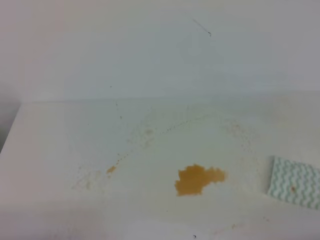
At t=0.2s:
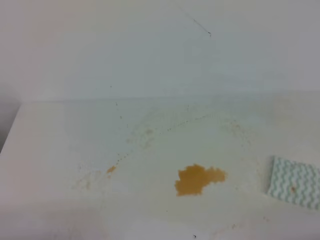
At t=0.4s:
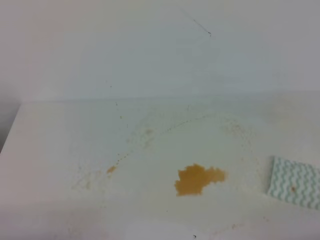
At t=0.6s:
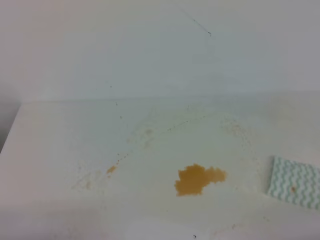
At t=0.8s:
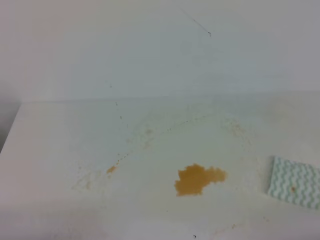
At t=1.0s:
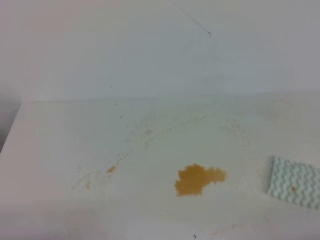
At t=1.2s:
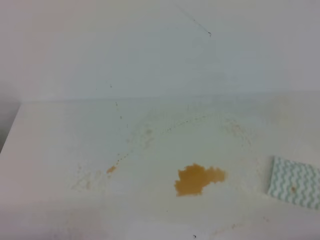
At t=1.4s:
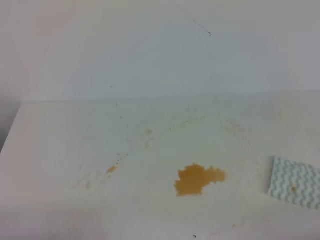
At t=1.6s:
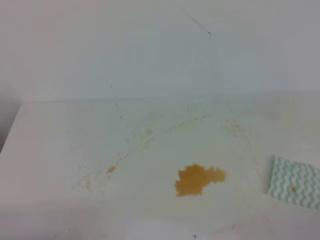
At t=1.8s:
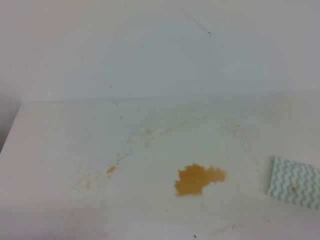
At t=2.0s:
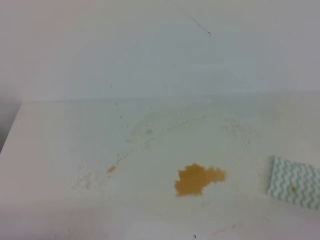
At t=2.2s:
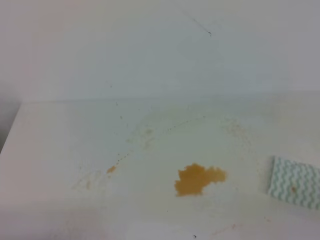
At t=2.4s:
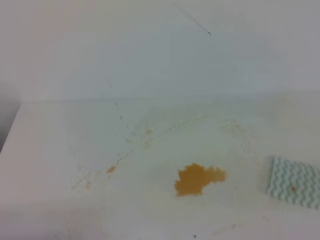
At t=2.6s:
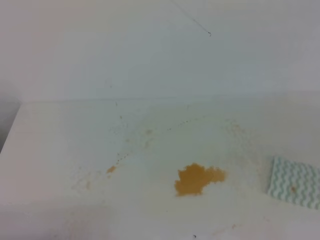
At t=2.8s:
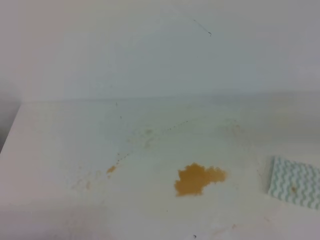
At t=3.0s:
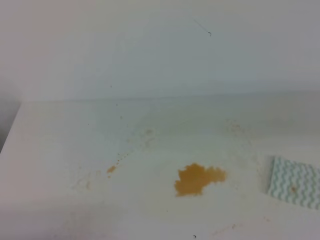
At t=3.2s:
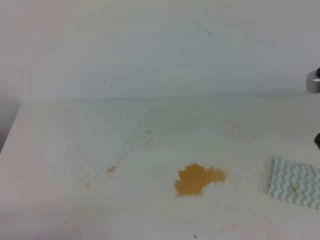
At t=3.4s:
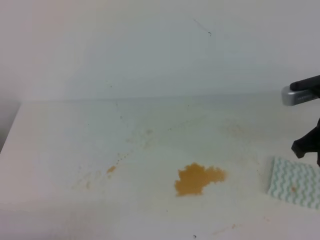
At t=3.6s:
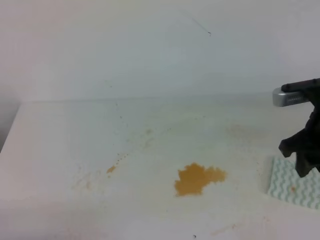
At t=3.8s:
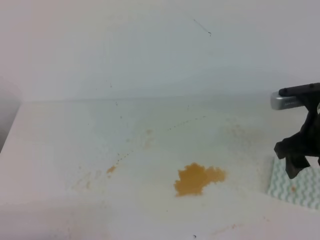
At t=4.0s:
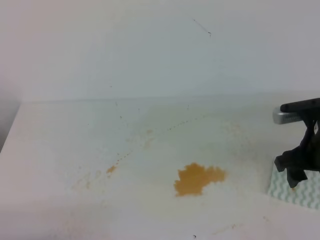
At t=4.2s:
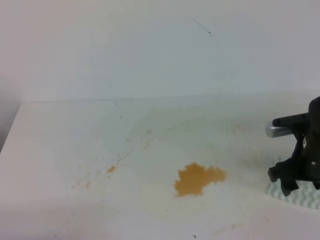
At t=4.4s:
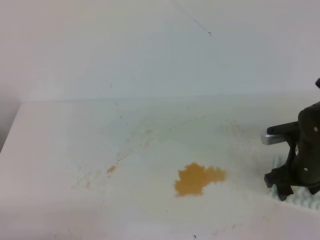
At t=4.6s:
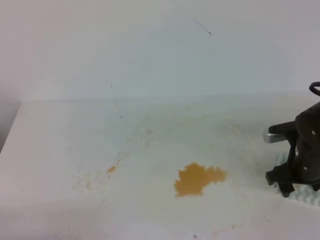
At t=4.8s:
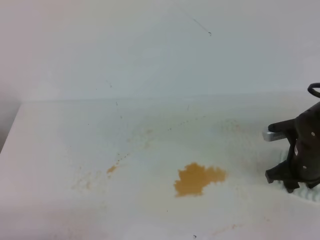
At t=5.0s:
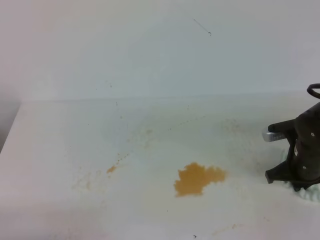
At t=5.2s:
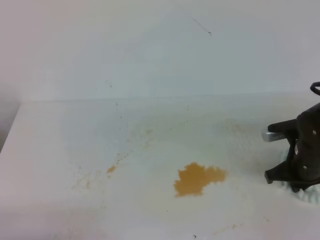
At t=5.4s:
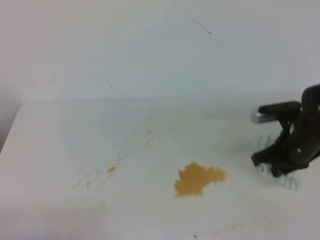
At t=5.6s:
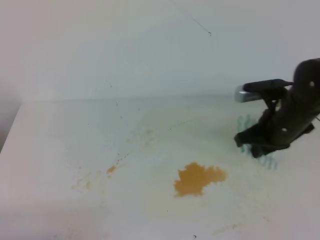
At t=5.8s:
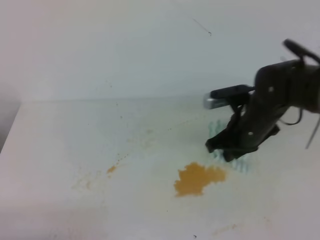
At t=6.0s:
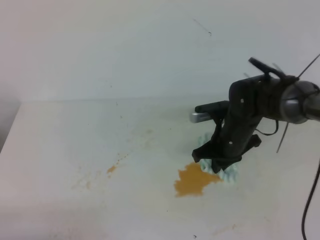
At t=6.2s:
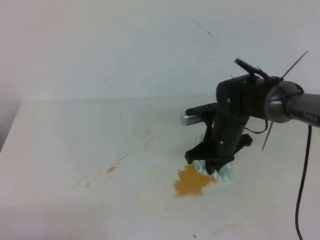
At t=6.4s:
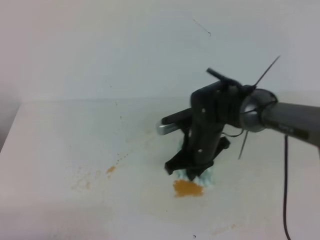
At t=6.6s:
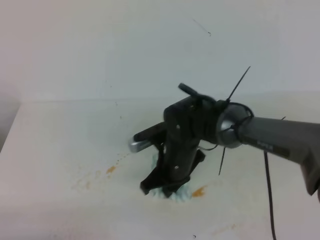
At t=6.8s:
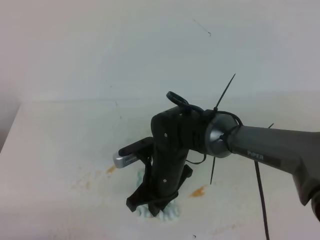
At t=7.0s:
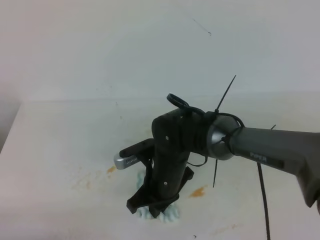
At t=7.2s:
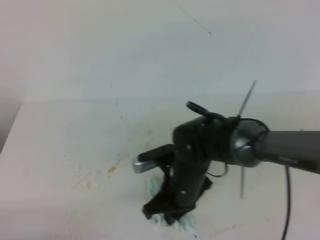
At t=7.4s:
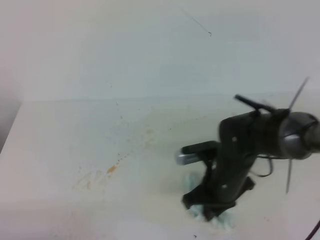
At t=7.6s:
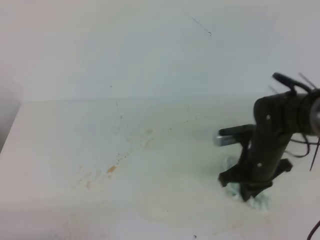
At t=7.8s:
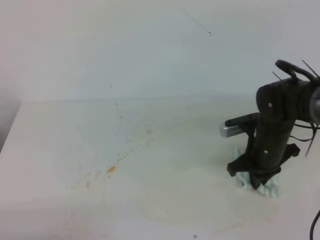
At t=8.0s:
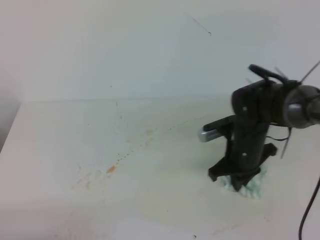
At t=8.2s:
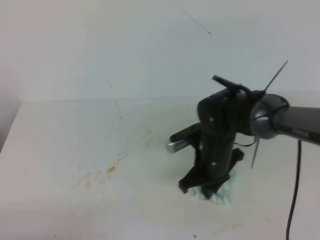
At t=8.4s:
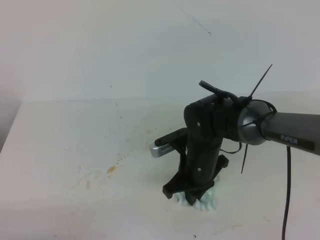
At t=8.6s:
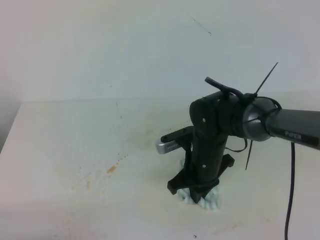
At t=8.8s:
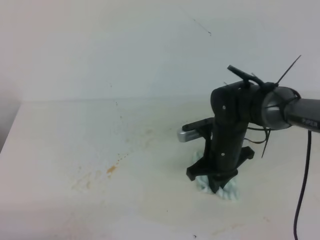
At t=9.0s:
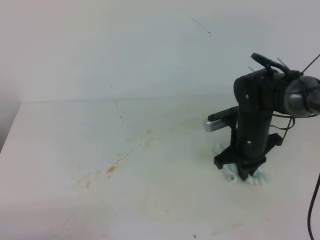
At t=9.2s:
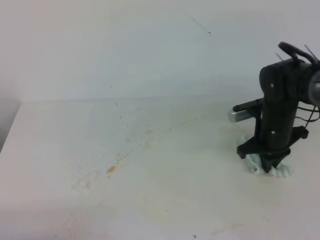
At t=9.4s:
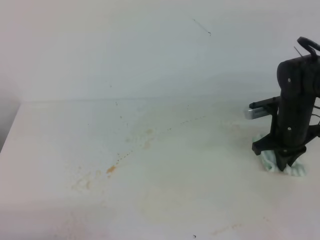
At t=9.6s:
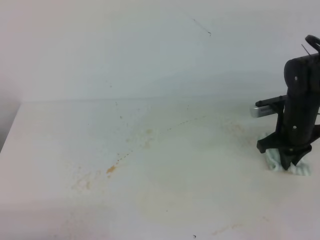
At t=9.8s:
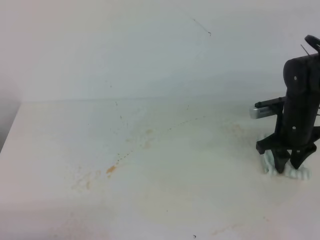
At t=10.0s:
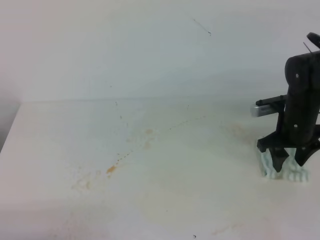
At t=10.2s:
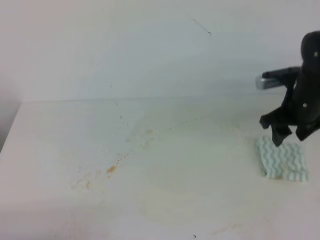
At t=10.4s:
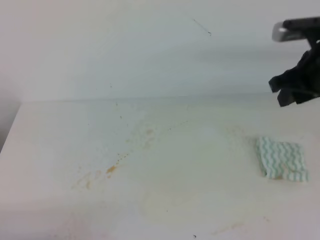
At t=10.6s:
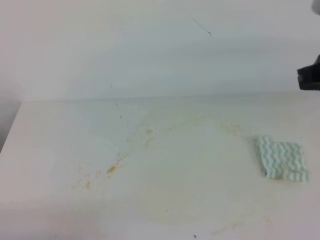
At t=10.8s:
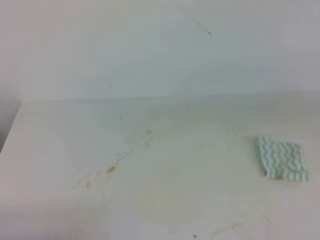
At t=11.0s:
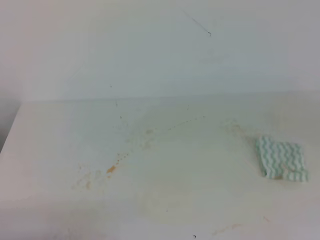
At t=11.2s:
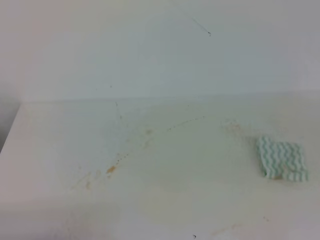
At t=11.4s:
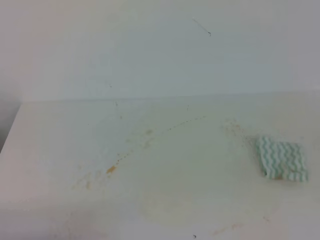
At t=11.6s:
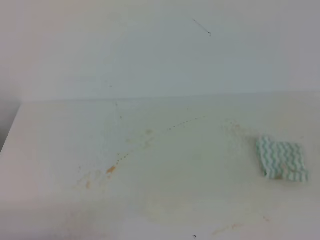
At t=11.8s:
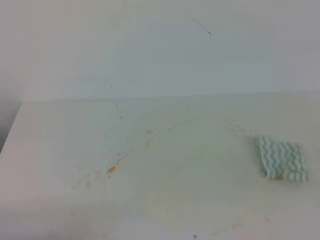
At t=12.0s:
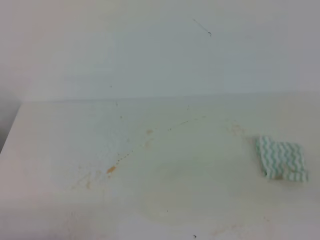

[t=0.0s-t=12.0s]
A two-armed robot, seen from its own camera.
t=3.0s to t=4.4s: The right gripper heads downward and forward, covering approximately 20 cm, and opens up.
t=4.4s to t=6.0s: The right gripper is displaced to the left and forward by roughly 15 cm, and closes.
t=6.0s to t=7.6s: The right gripper reaches roughly 15 cm to the left, then returns.
t=7.6s to t=9.0s: The right gripper reaches roughly 5 cm to the left, then returns.
t=9.0s to t=10.4s: The right gripper heads upward and to the right, covering about 20 cm, and opens its fingers.
t=10.4s to t=12.0s: The right gripper goes roughly 25 cm backward, and closes its fingers.

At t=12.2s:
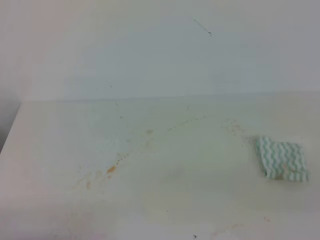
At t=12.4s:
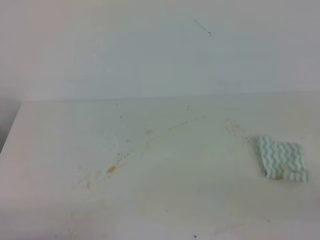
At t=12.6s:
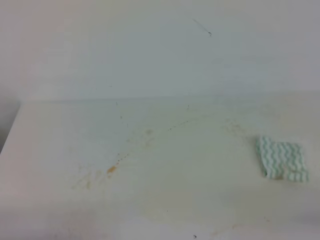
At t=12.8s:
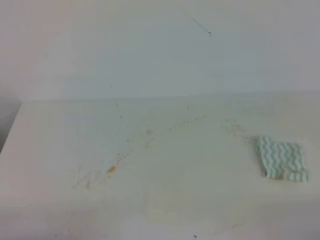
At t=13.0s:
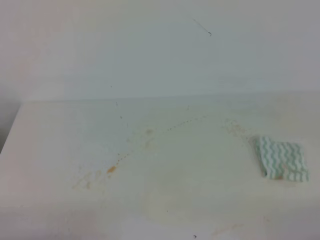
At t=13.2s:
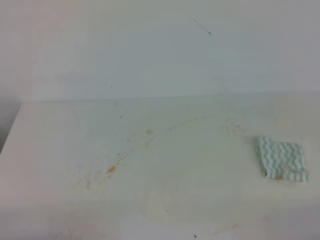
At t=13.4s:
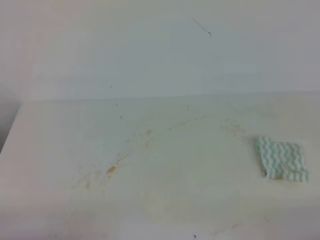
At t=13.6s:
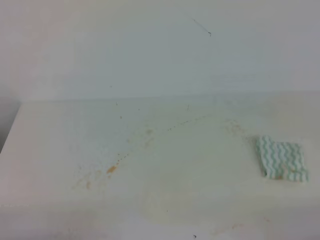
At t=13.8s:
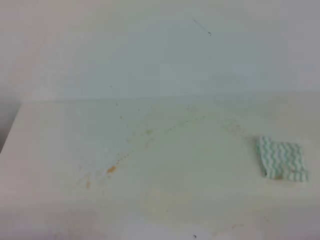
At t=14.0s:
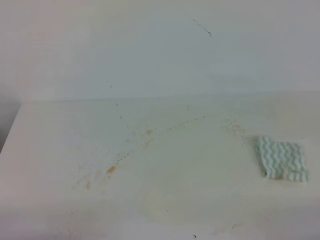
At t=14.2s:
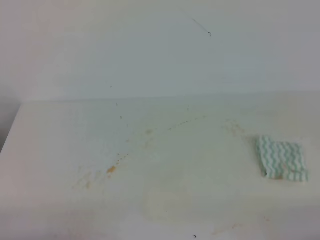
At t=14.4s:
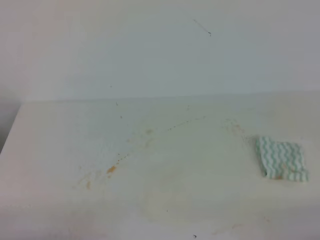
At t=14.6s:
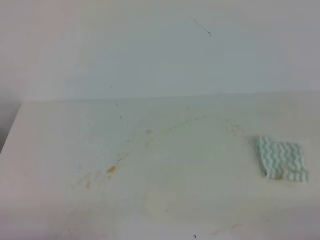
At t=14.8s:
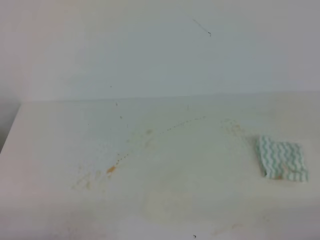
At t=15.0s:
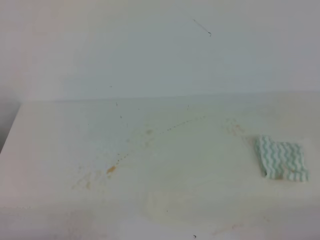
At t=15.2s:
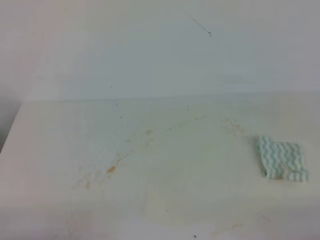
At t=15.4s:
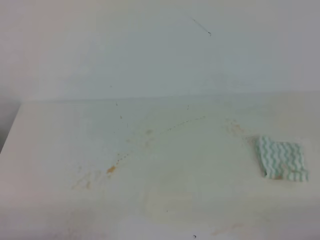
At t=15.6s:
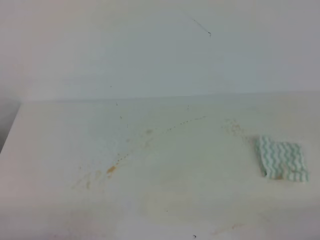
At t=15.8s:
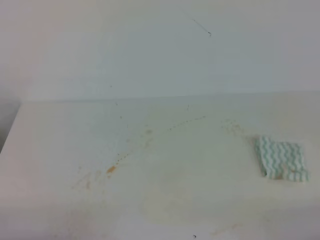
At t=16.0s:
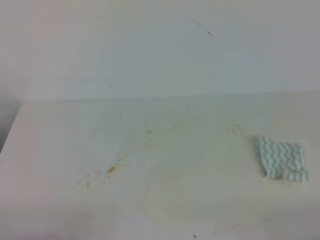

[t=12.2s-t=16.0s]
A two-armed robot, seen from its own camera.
t=13.4s to t=16.0s: The two grippers keep their place.
